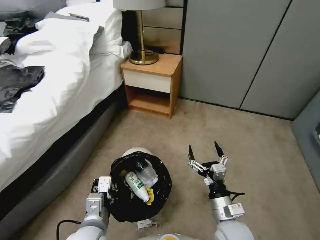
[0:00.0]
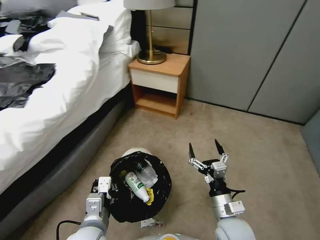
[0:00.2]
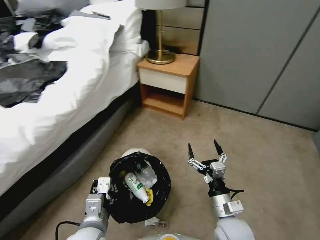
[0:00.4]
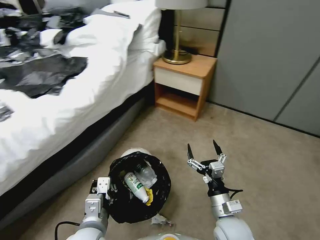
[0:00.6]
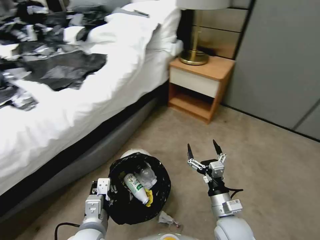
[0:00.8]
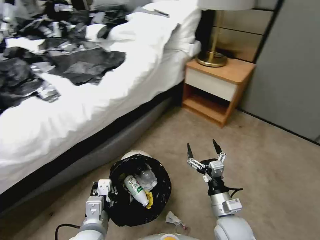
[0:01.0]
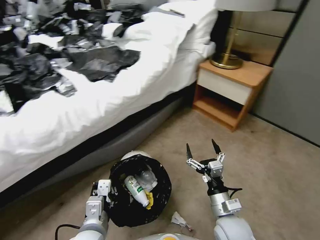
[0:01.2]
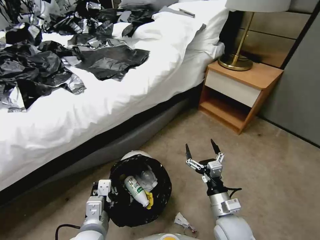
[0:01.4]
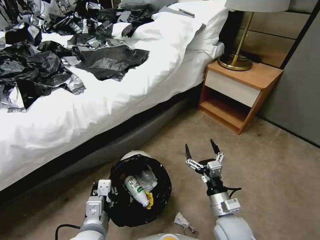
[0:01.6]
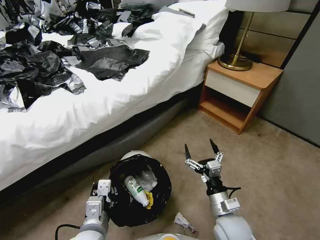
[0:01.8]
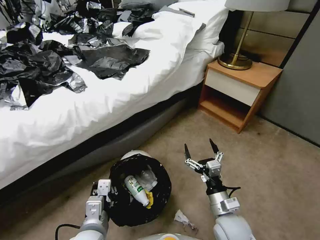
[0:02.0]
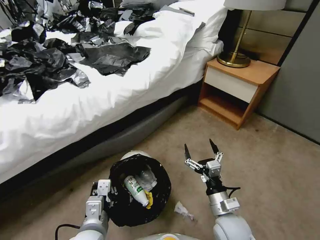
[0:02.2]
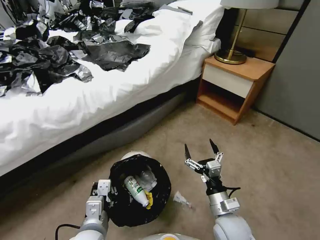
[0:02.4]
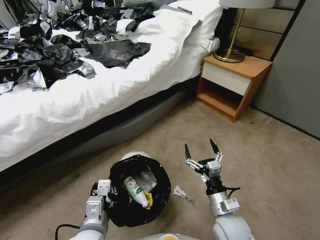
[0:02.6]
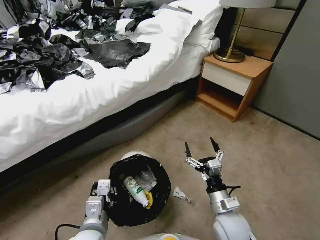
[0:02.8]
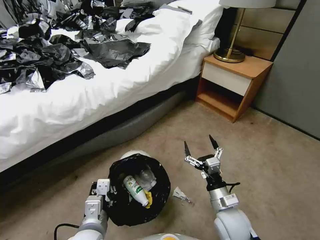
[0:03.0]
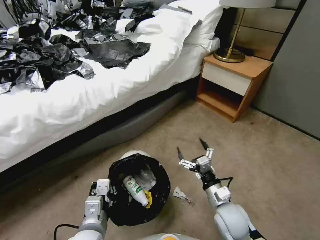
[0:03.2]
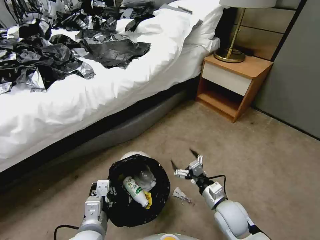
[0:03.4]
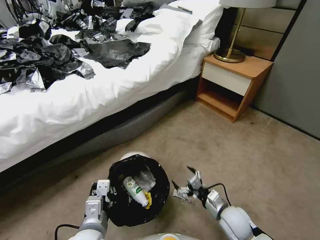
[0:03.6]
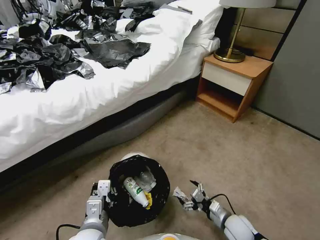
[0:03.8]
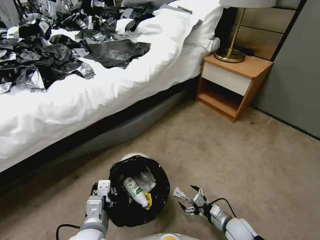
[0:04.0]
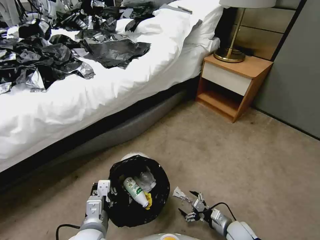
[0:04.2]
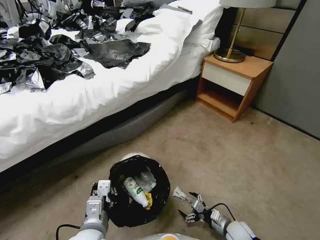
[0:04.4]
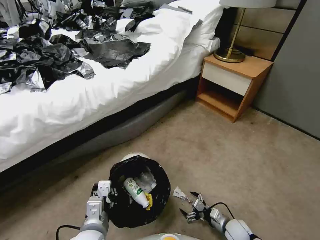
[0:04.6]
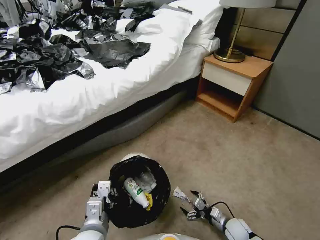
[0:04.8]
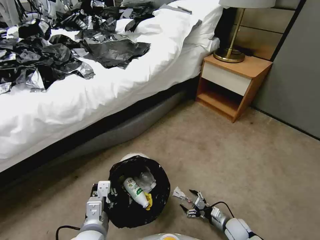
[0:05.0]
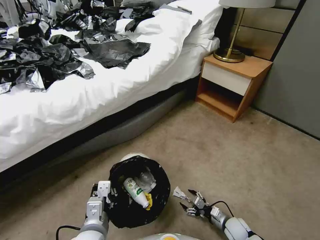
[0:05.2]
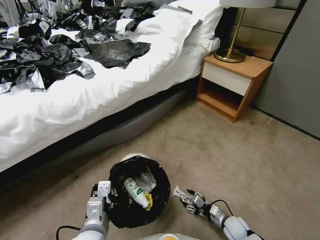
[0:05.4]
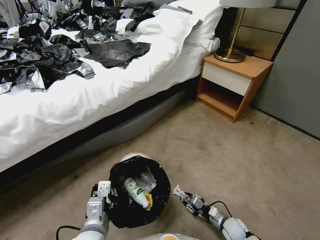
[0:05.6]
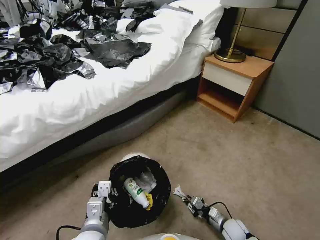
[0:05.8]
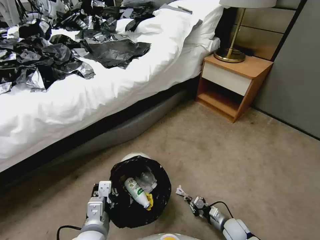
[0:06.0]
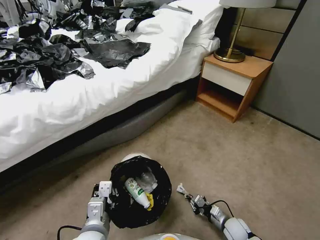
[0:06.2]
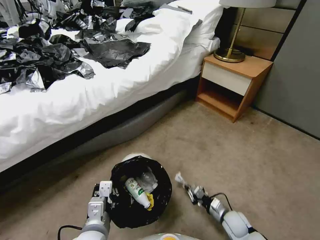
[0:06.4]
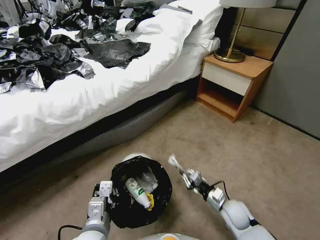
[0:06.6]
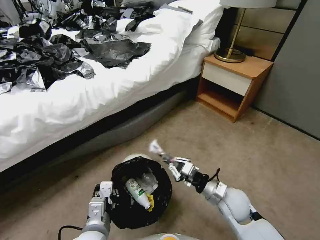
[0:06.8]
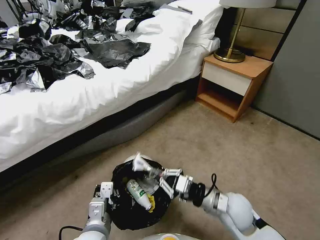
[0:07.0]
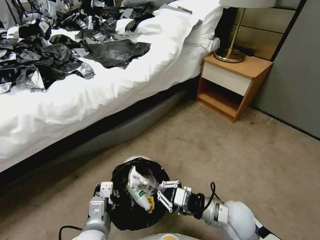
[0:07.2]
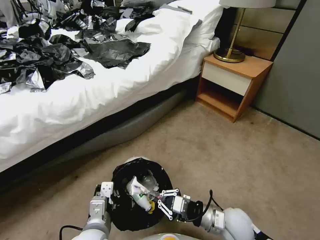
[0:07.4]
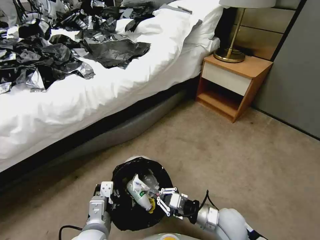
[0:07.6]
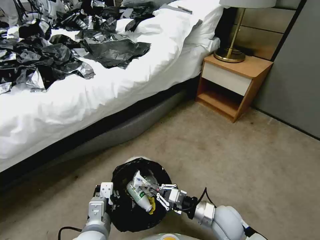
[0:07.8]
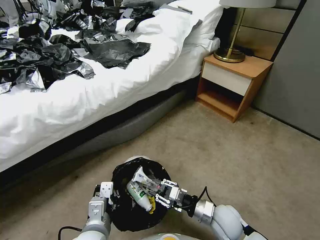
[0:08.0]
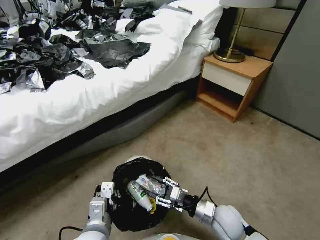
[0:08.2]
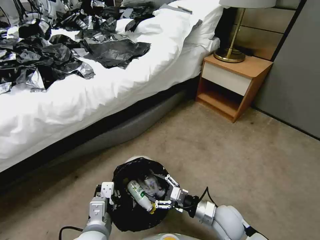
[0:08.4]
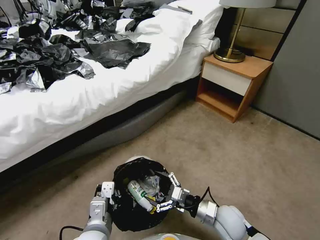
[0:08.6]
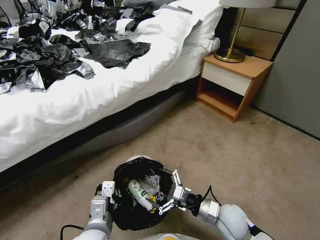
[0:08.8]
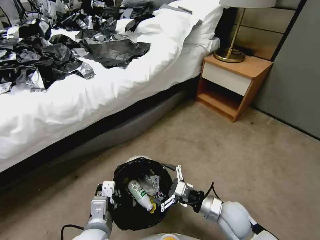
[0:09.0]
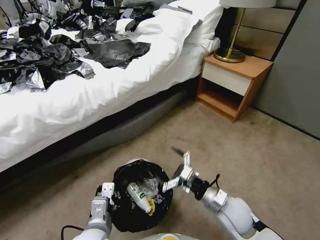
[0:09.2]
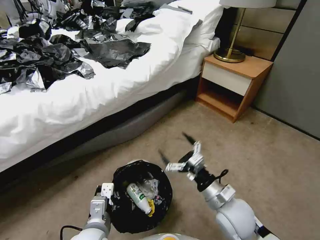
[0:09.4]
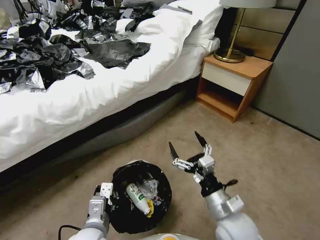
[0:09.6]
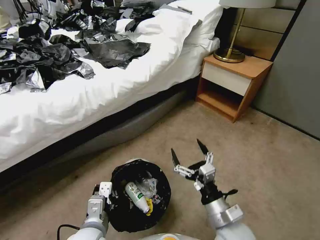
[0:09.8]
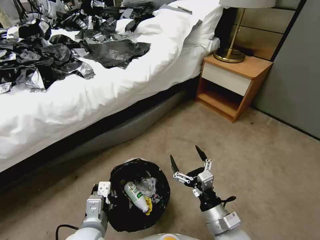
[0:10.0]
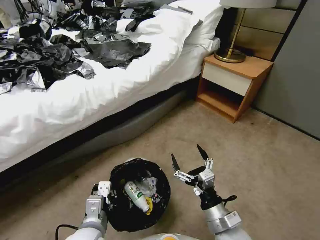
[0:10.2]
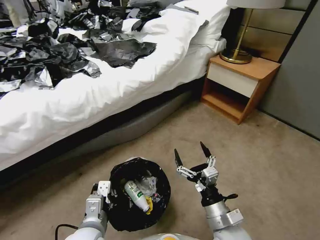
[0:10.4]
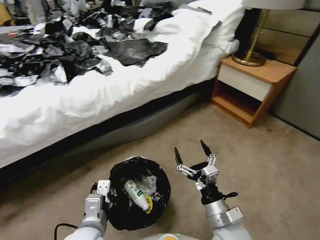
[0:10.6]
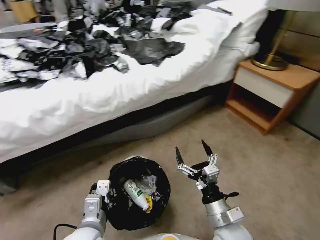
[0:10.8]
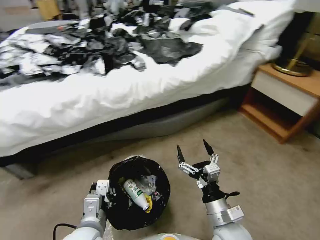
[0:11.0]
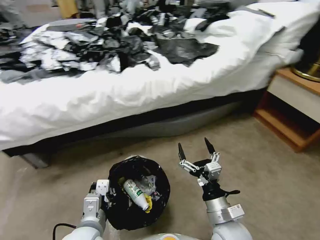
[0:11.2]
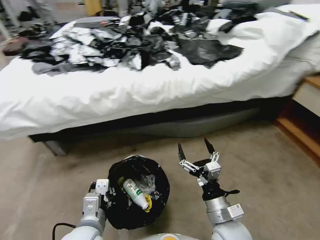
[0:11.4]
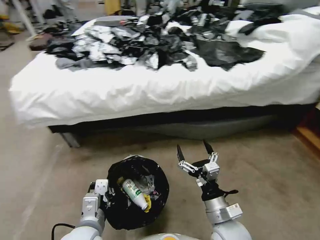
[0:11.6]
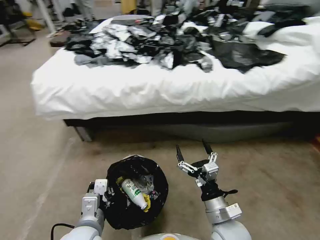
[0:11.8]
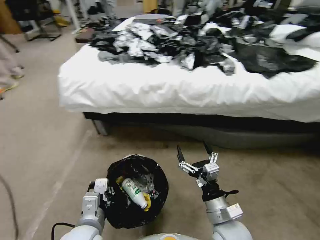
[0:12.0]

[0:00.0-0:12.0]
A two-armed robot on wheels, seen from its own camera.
Task of the whole recording: Pick up the trash bin, then pick up the garbage from the floor and place it into the trash bin.
0:03.0 to 0:04.4: The right gripper is displaced downward and to the right by about 20 cm.
0:04.4 to 0:06.0: The right gripper closes up.
0:06.0 to 0:07.6: The right gripper moves upward and to the left, roughly 20 cm.
0:07.6 to 0:09.0: The right gripper opens.
0:09.0 to 0:10.4: The right gripper shifts roughly 5 cm backward.

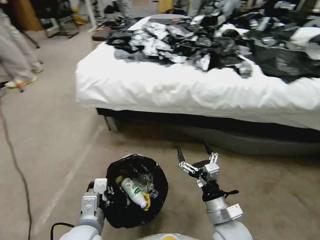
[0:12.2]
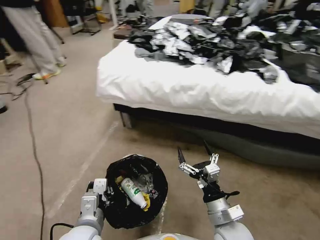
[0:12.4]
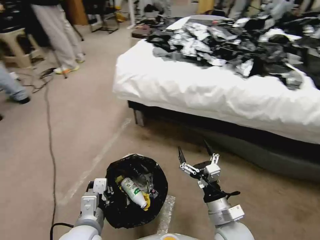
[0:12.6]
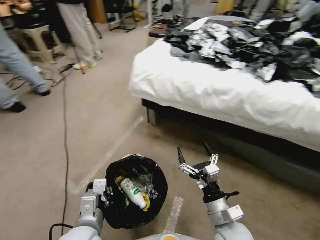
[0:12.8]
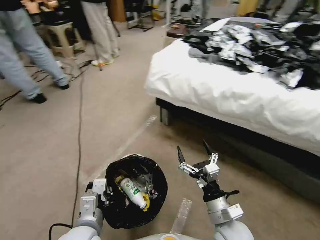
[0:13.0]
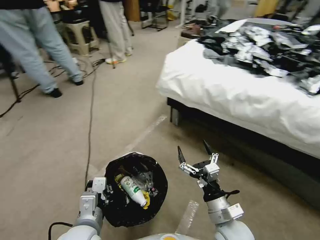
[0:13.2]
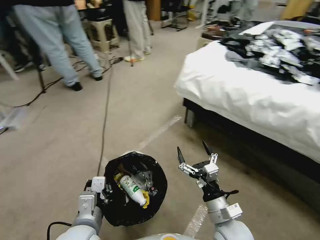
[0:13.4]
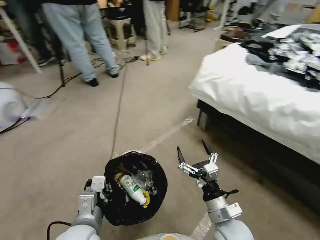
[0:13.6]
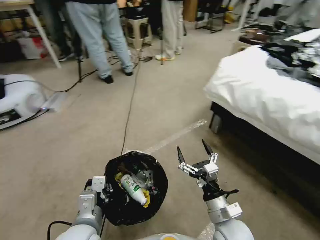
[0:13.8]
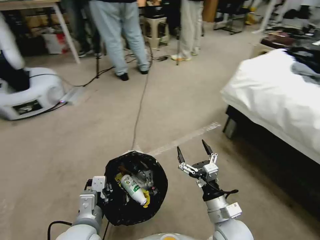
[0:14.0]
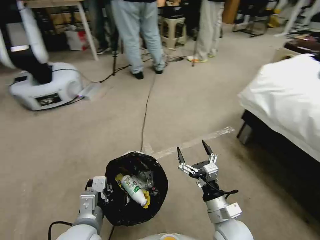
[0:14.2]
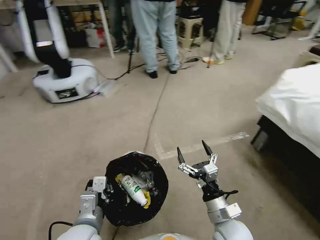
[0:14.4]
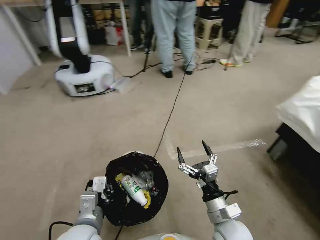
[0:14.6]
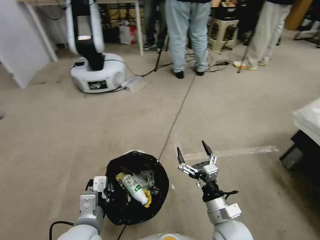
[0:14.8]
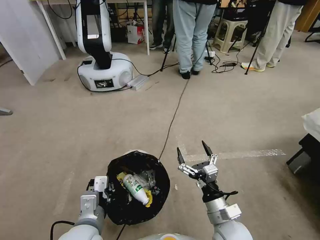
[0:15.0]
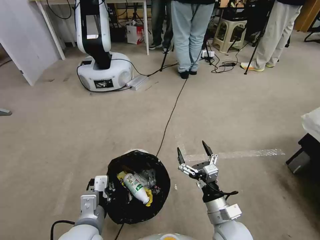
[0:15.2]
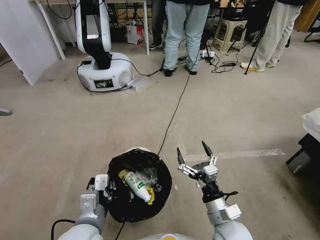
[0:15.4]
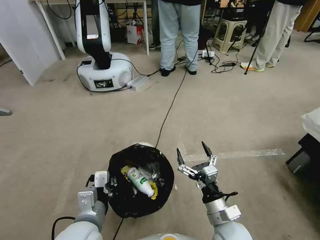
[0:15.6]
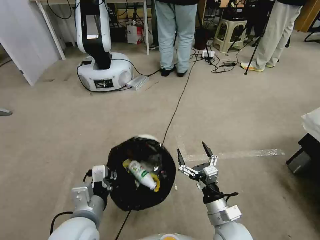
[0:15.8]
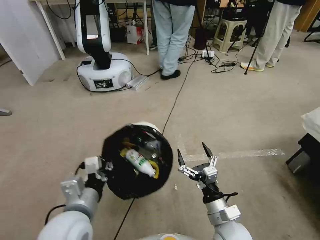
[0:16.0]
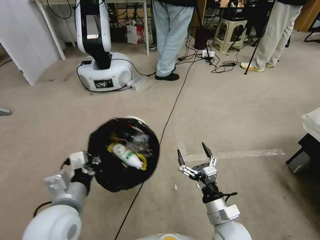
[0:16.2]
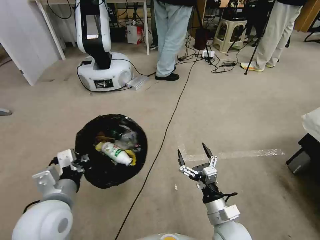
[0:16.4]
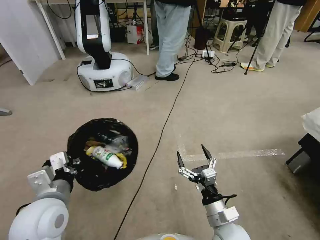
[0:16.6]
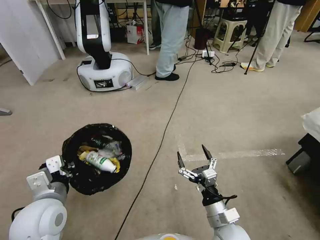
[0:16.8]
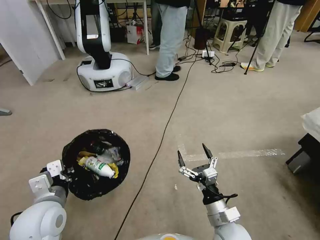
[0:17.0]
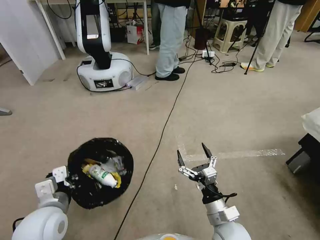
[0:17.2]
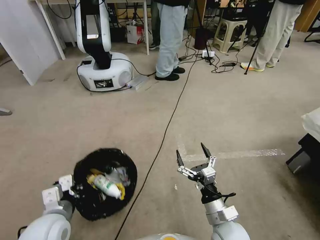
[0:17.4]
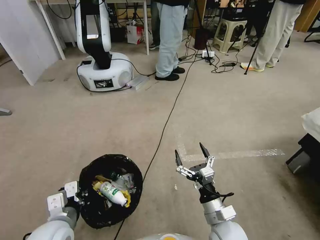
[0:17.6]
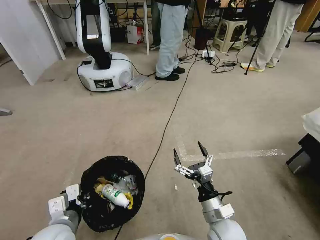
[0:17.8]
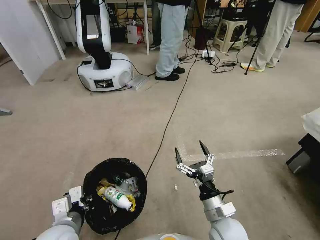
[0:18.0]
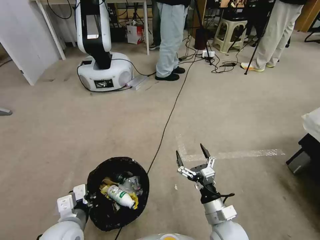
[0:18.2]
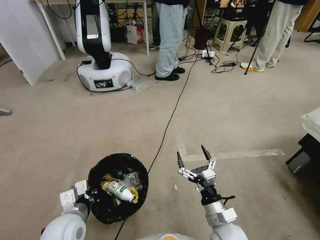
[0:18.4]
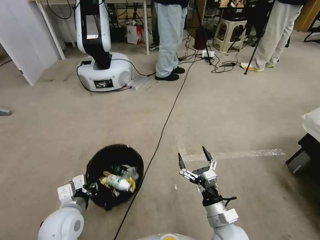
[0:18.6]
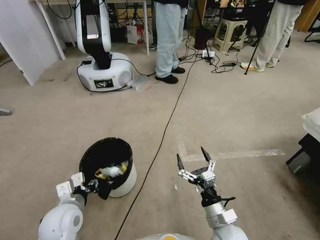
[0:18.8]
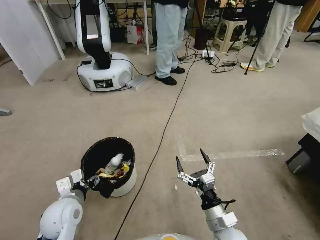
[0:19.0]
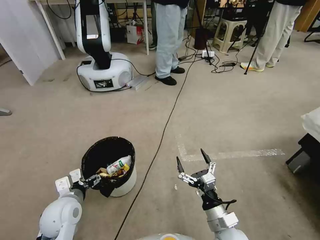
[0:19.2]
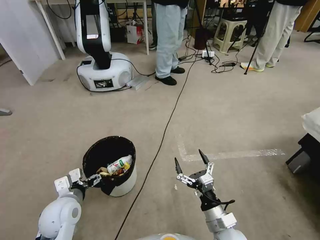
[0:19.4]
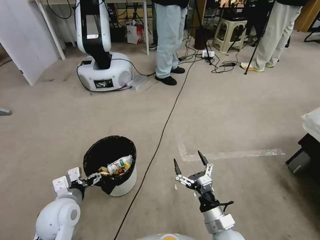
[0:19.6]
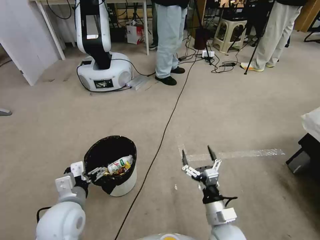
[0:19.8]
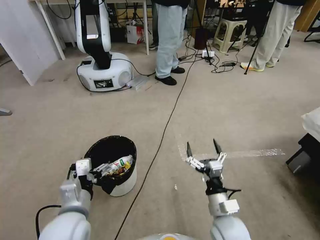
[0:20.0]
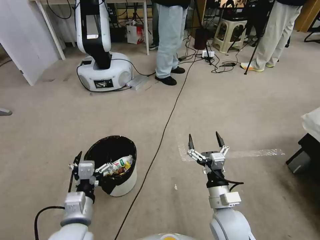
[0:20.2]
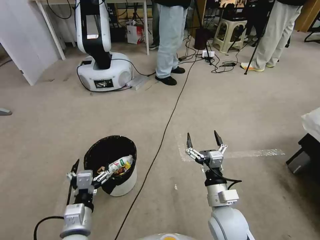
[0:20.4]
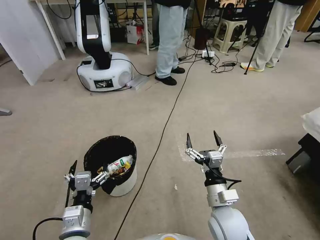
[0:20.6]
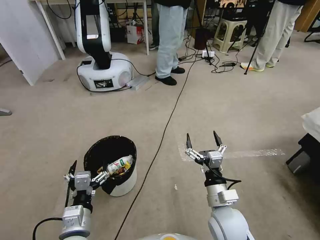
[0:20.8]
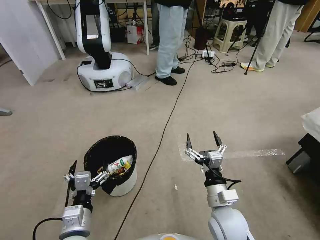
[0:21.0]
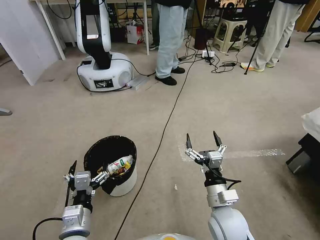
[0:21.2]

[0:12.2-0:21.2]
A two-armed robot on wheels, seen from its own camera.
Task of the whole recording: Pick up the trash bin, then pick up the garbage from the floor and place it into the trash bin.
0:15.2 to 0:16.6: The left gripper travels to the left and upward by some 10 cm.
0:16.6 to 0:18.2: The left gripper goes about 10 cm downward.
0:18.2 to 0:19.8: The left gripper opens.
0:19.8 to 0:21.2: The right gripper changes place by roughly 5 cm, while the left gripper goes approximately 5 cm backward.
